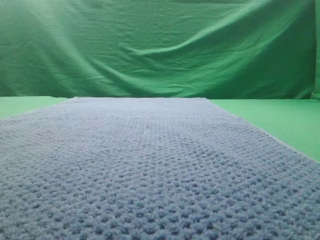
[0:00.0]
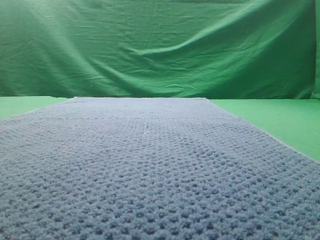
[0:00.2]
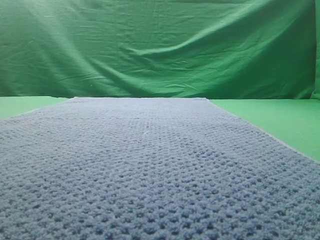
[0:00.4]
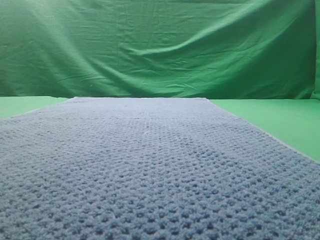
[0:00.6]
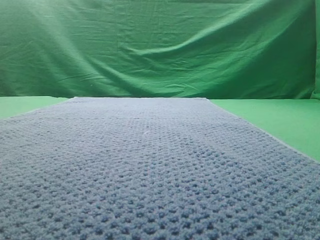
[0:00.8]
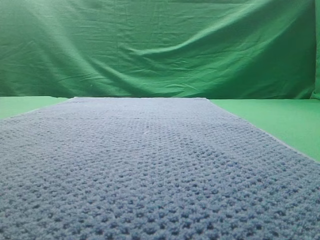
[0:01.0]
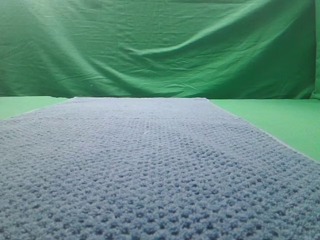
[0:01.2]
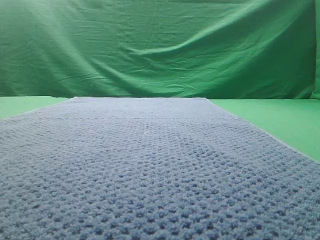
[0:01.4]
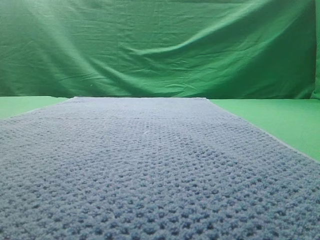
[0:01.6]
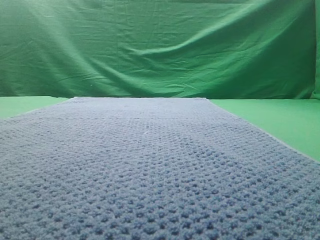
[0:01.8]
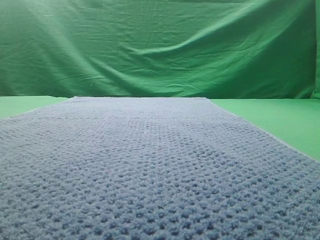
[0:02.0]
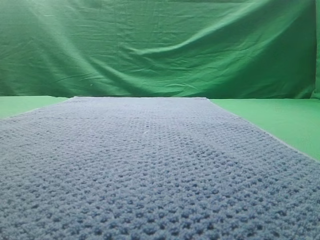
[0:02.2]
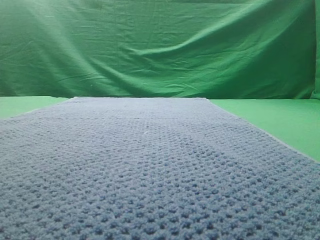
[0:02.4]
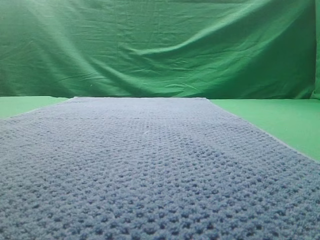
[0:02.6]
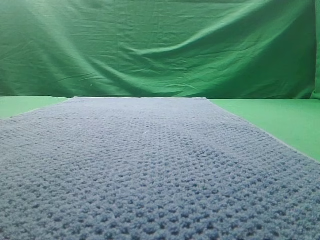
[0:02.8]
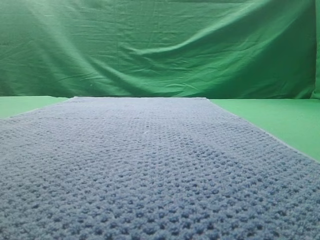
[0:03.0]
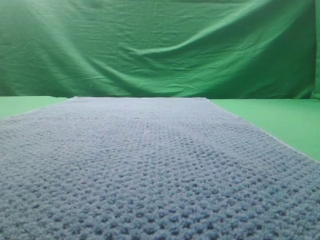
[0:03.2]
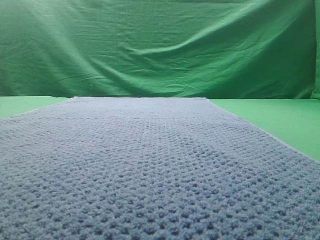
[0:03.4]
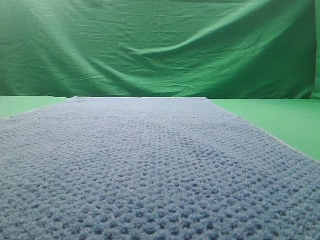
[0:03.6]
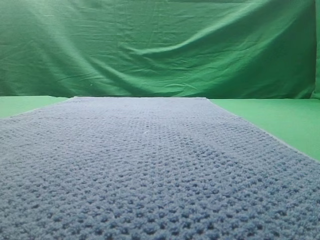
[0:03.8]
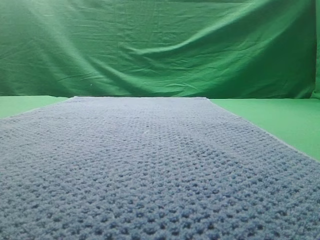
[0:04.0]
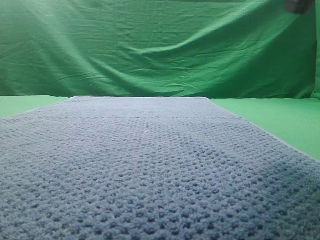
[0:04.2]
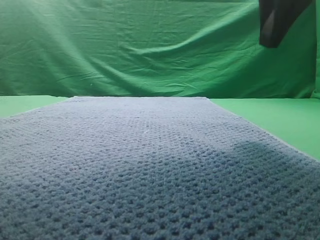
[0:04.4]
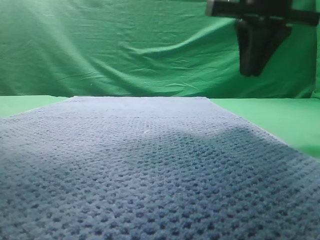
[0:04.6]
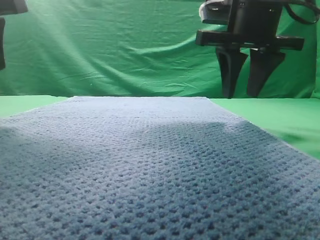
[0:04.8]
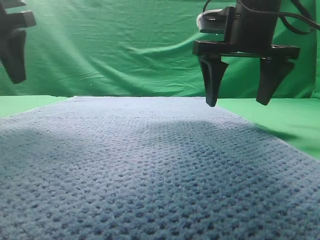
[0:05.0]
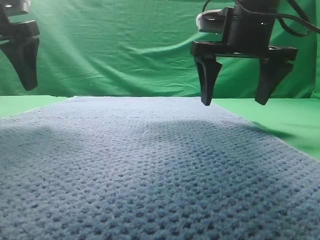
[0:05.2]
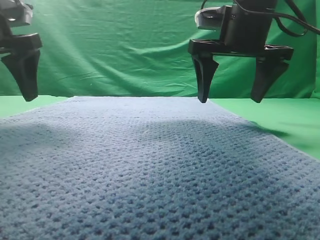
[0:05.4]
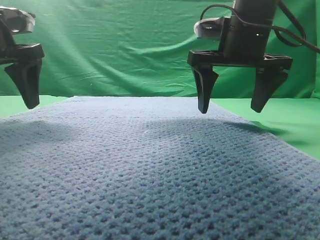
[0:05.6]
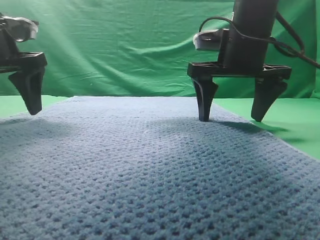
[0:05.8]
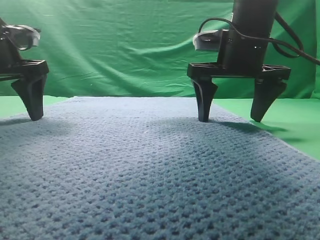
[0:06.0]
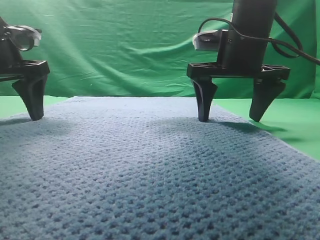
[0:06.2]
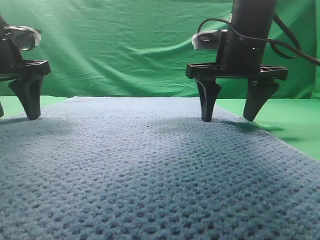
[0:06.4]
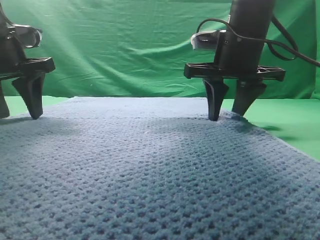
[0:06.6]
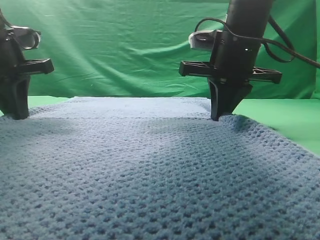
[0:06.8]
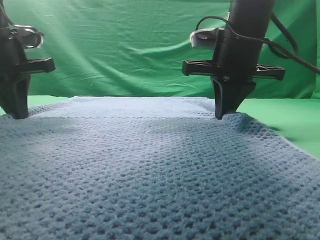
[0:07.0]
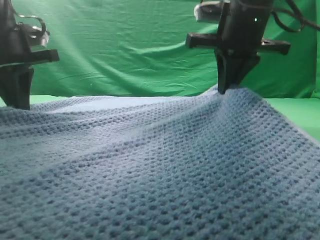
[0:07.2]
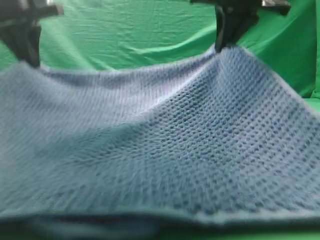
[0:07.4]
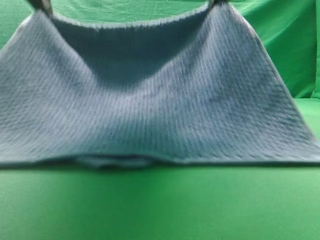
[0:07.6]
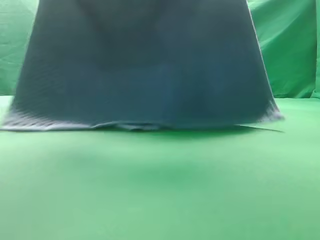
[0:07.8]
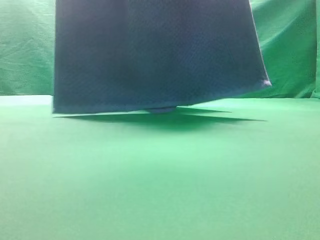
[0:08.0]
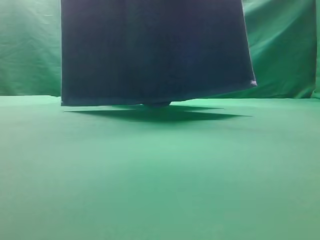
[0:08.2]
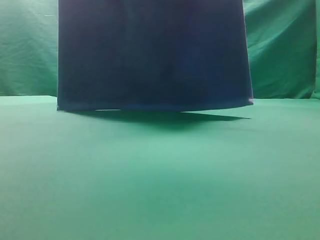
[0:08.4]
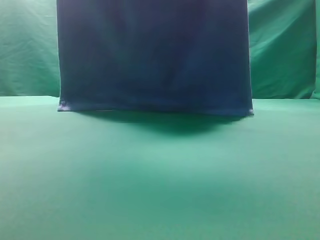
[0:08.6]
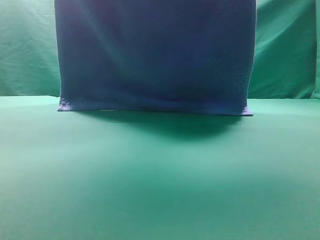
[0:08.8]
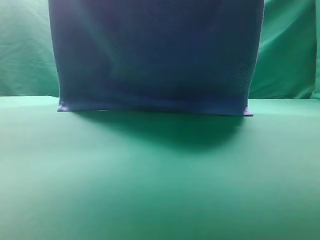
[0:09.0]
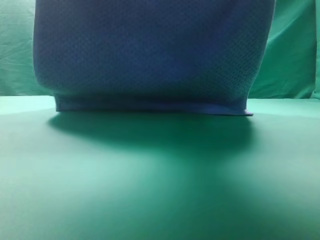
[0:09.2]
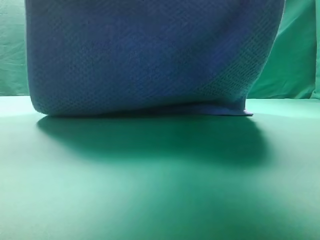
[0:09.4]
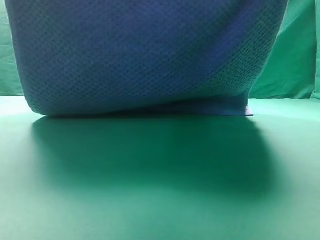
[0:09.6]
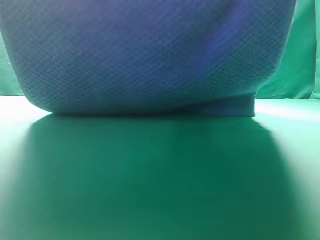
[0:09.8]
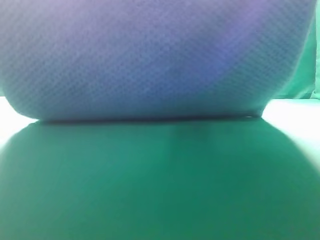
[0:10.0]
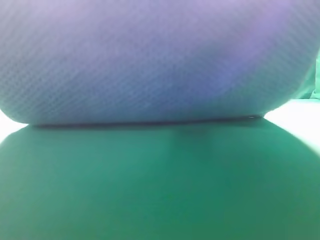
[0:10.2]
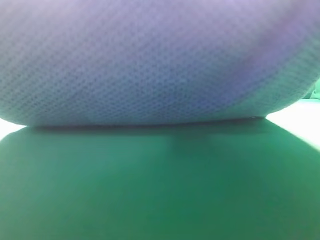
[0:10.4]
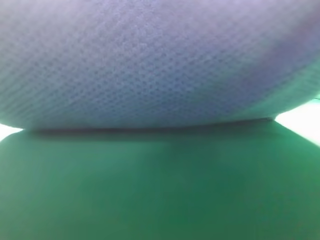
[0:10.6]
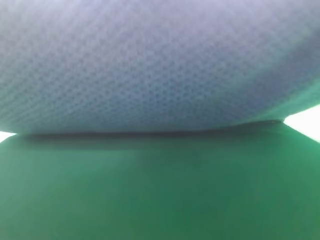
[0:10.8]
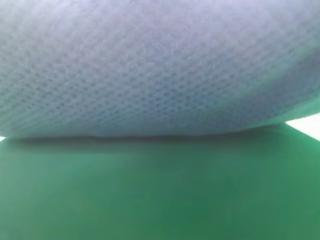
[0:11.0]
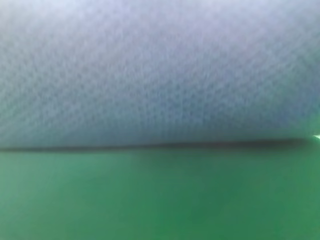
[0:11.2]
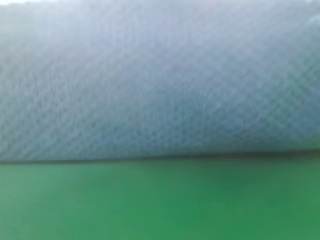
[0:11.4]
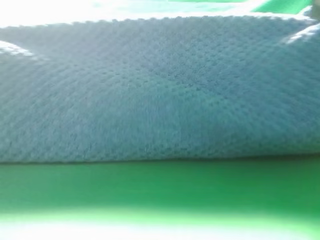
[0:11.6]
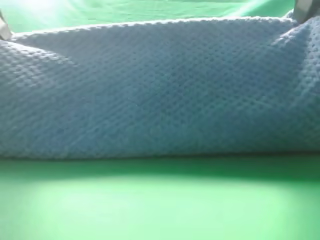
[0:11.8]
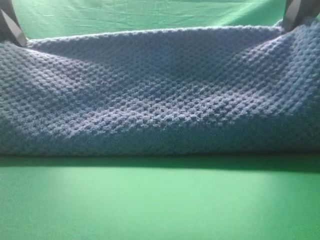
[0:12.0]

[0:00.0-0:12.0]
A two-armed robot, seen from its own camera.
Task of the whole recording: fold the towel on the table twice.
Step, 0:00.0 to 0:08.0: pick up the towel with two arm.

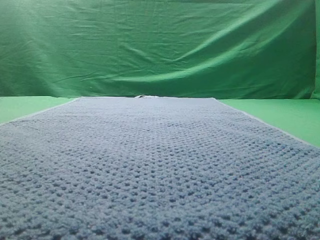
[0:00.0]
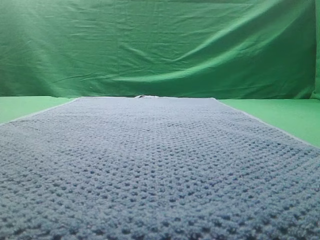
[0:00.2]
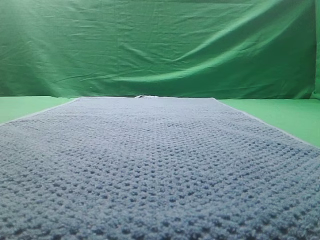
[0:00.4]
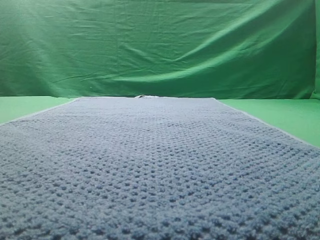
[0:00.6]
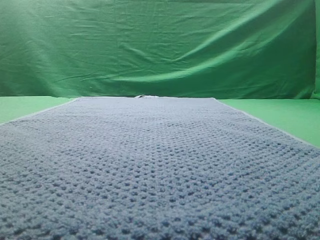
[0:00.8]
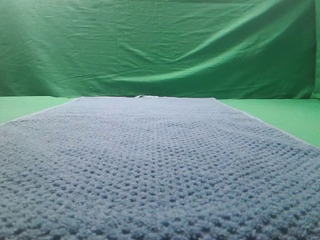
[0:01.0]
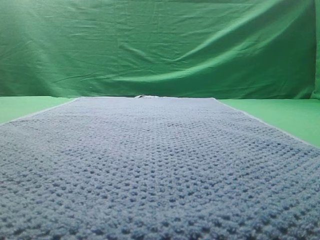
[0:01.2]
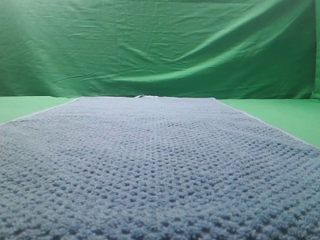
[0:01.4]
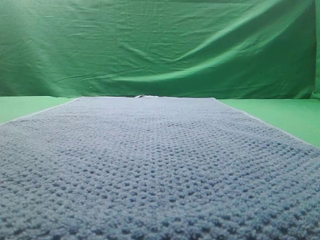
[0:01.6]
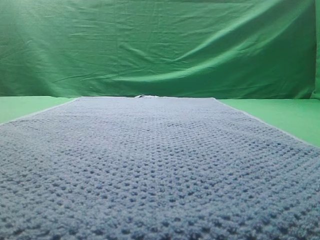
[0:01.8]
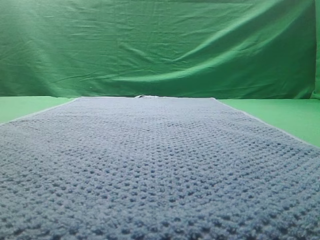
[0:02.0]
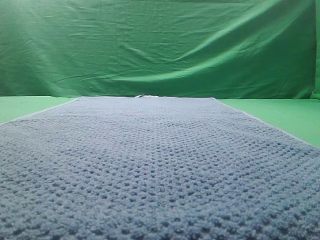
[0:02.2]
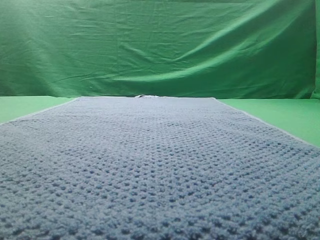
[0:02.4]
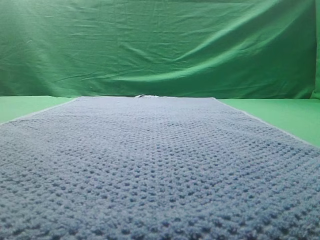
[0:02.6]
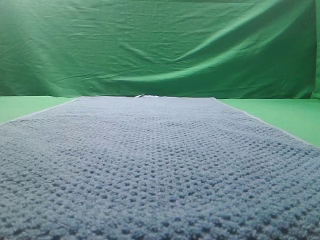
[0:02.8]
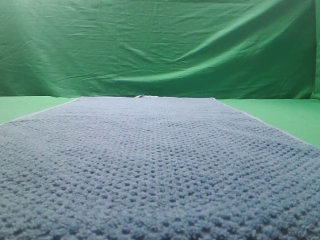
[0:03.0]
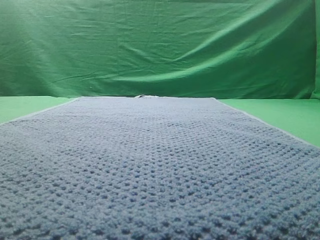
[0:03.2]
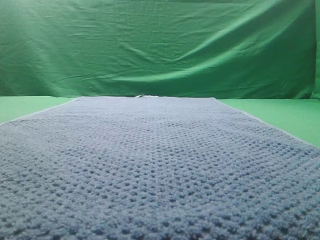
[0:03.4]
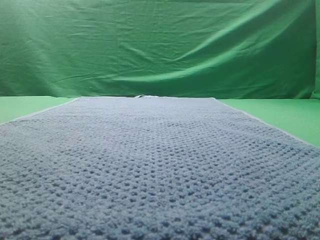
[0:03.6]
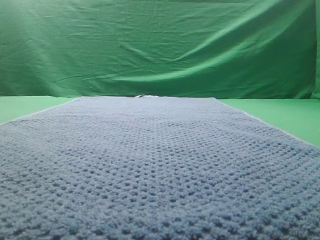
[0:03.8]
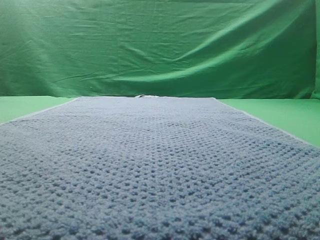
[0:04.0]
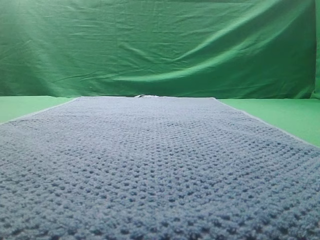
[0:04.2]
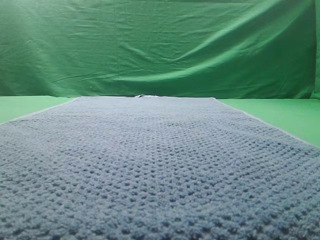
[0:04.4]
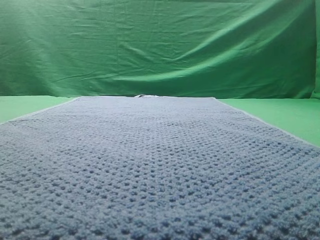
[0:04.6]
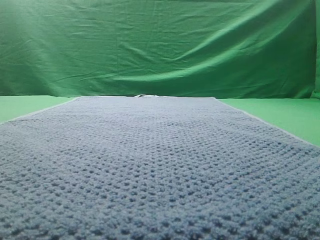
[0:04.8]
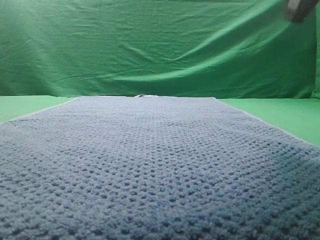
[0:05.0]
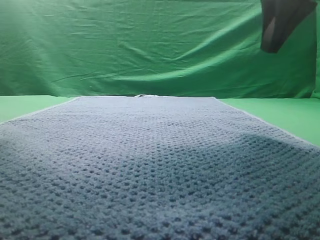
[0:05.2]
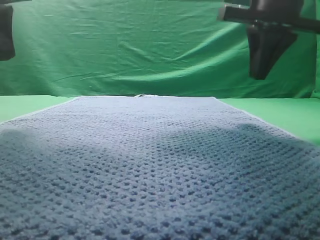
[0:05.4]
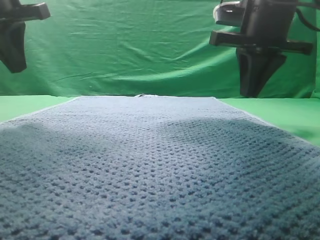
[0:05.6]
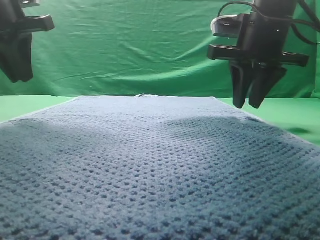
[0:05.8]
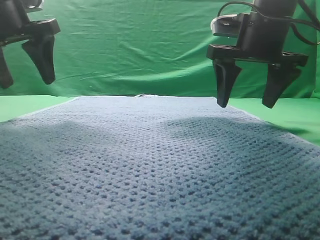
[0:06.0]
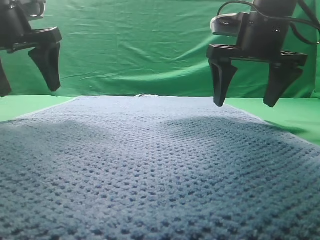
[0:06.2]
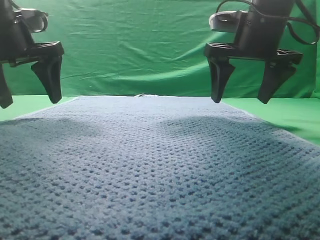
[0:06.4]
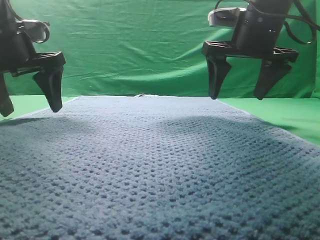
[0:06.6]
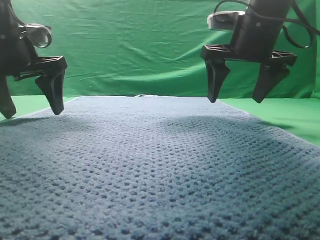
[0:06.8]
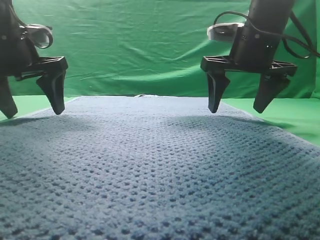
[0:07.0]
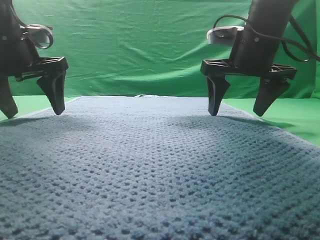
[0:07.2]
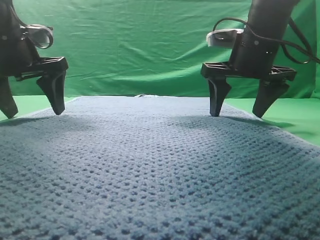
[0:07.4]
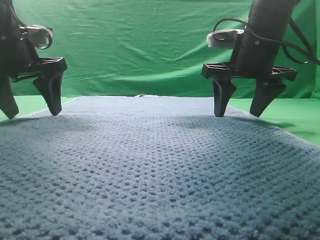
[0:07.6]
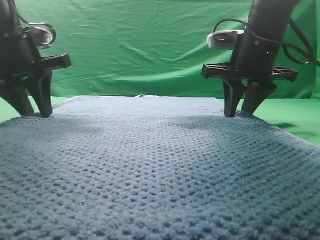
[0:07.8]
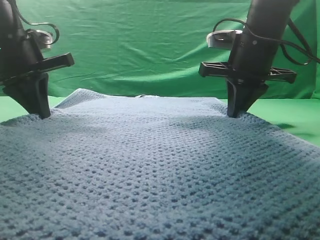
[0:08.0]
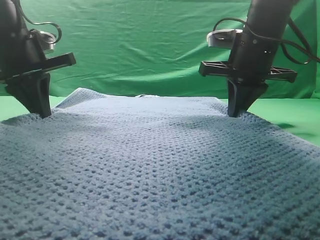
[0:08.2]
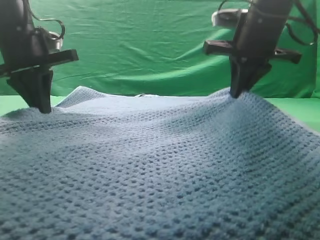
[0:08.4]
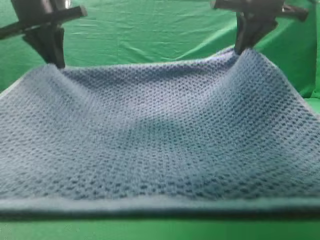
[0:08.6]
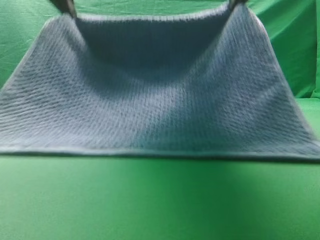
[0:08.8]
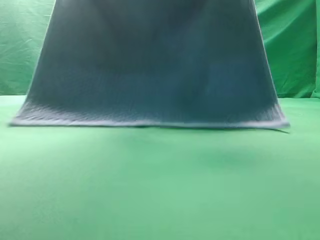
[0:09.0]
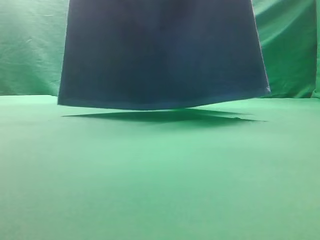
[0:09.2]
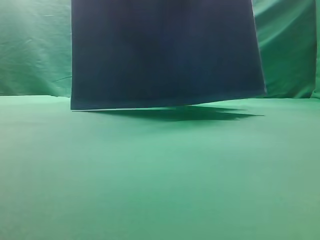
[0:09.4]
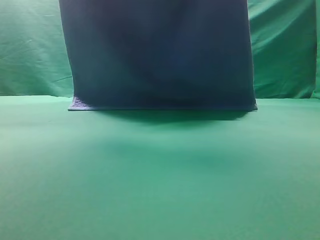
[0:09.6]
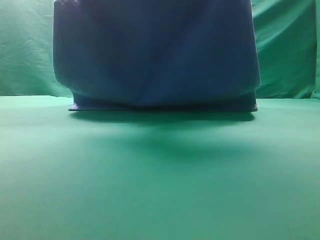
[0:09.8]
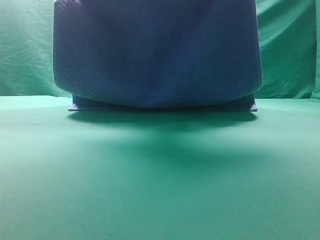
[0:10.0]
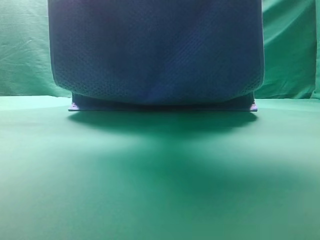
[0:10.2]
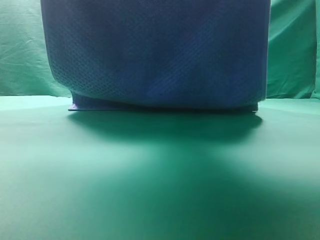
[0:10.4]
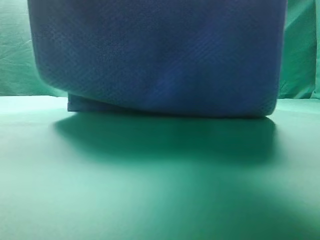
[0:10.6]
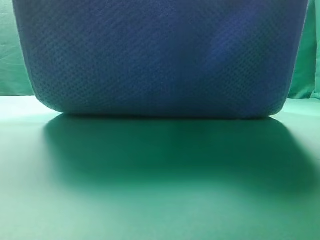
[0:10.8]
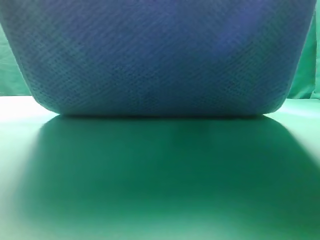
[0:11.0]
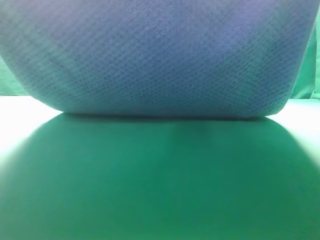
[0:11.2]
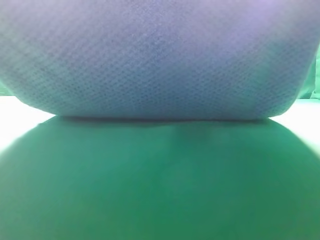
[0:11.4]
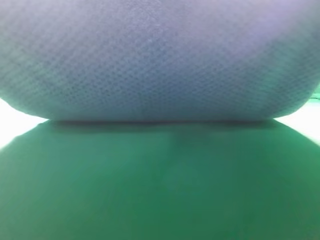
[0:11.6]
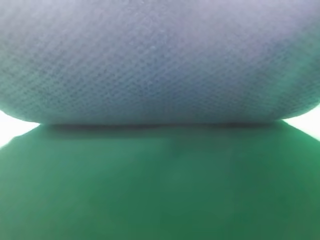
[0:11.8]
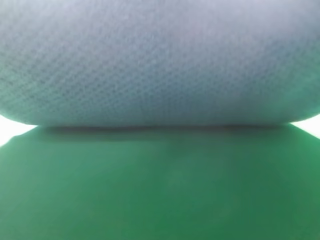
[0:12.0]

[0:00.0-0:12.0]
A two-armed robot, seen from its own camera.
Task of the whole recording: fold the towel on the table twice.
Step, 0:00.0 to 0:09.2: pick up the towel with two arm.
